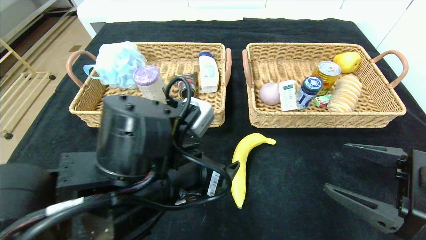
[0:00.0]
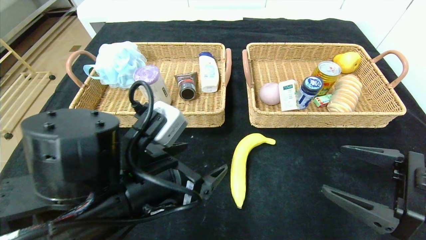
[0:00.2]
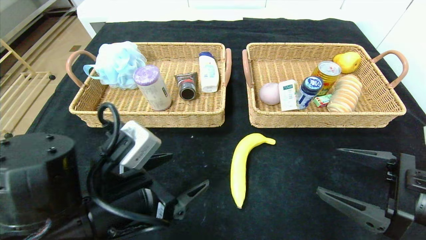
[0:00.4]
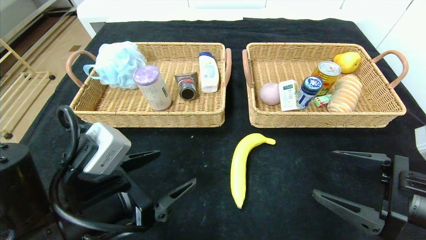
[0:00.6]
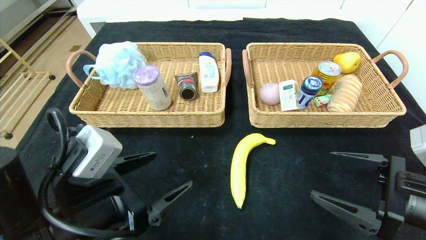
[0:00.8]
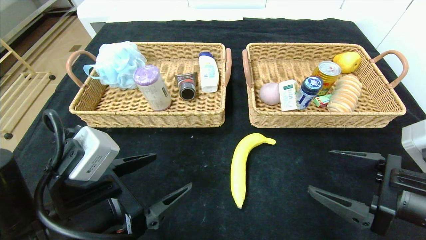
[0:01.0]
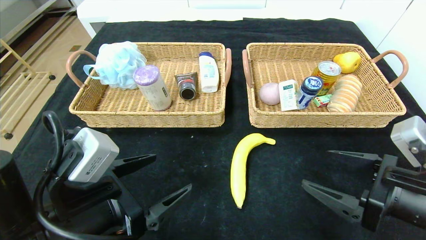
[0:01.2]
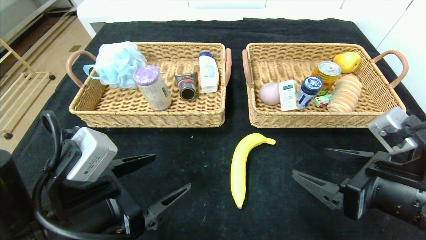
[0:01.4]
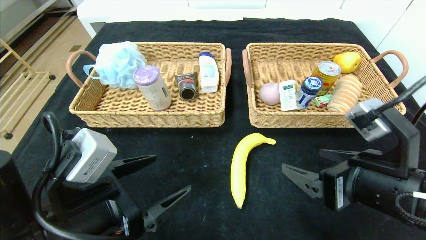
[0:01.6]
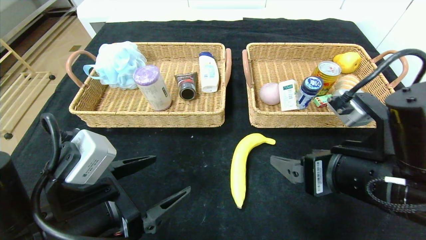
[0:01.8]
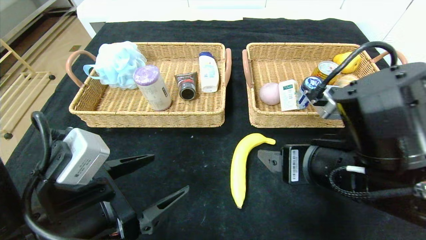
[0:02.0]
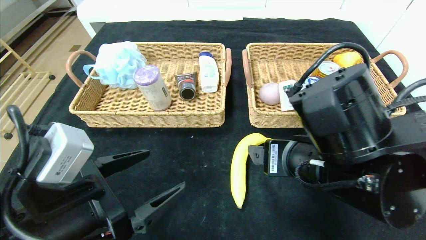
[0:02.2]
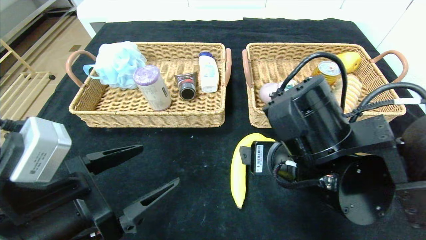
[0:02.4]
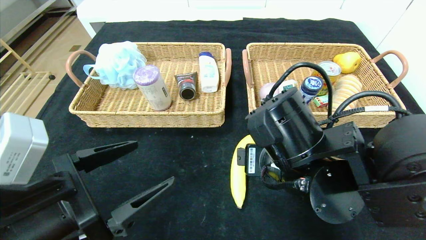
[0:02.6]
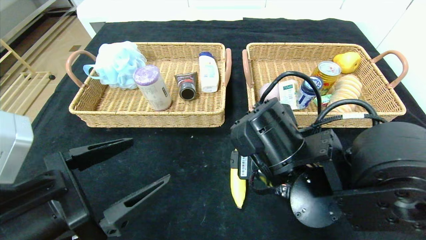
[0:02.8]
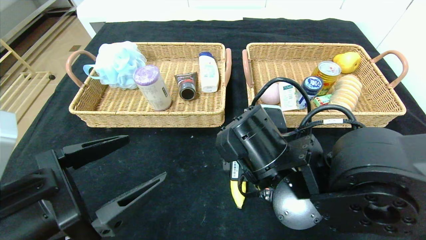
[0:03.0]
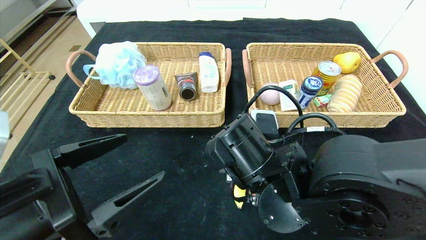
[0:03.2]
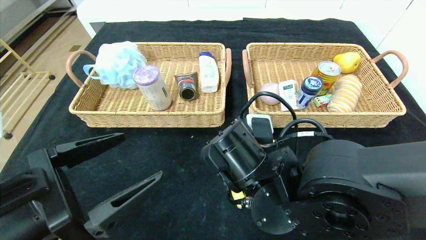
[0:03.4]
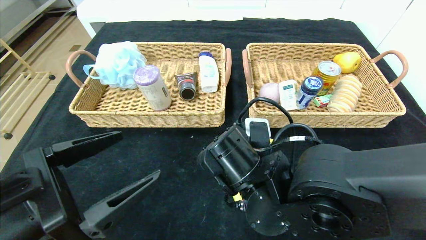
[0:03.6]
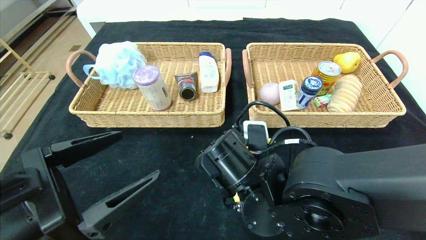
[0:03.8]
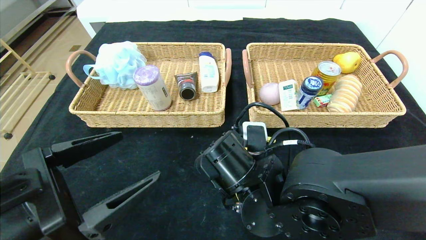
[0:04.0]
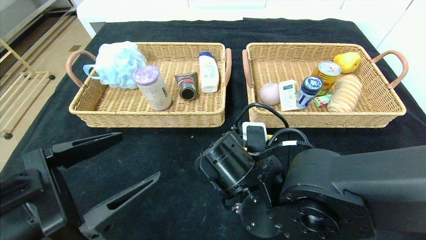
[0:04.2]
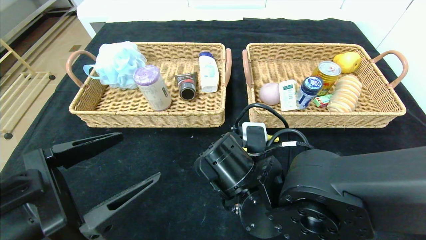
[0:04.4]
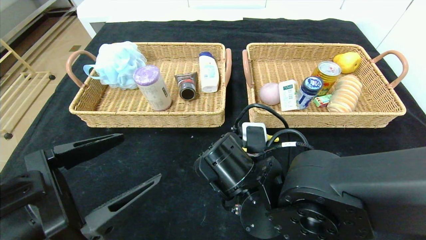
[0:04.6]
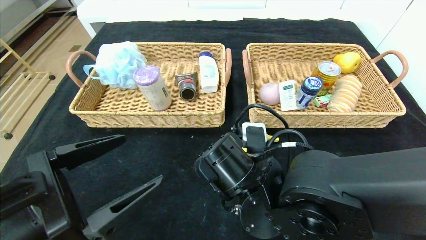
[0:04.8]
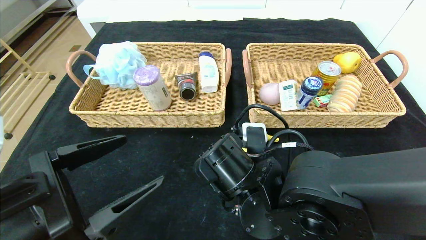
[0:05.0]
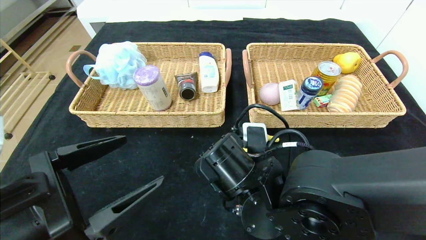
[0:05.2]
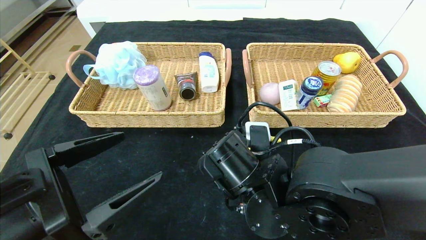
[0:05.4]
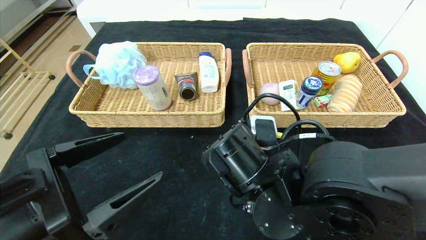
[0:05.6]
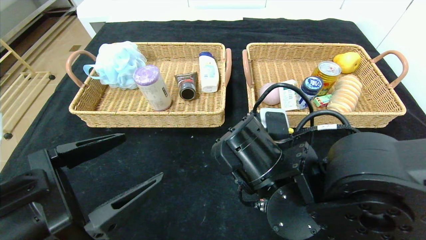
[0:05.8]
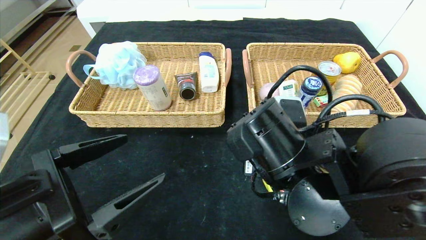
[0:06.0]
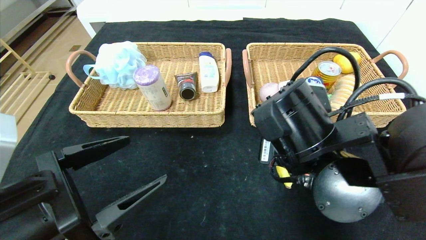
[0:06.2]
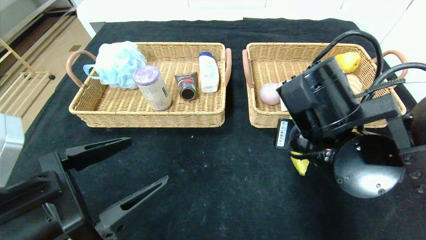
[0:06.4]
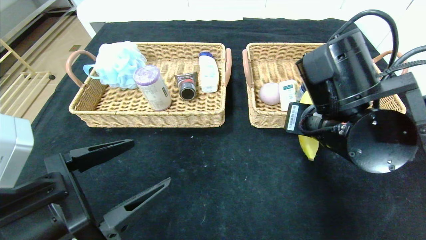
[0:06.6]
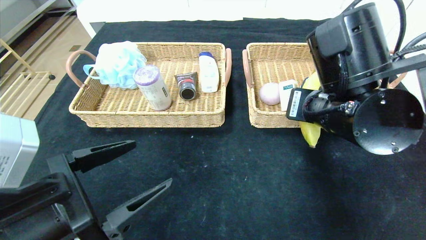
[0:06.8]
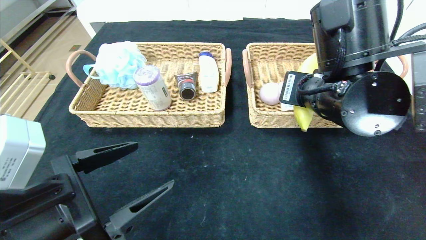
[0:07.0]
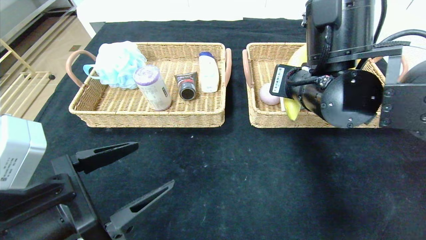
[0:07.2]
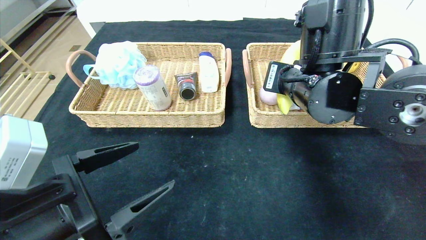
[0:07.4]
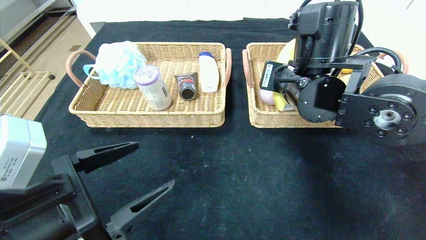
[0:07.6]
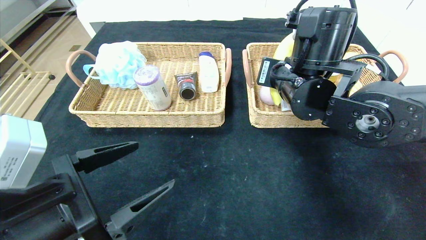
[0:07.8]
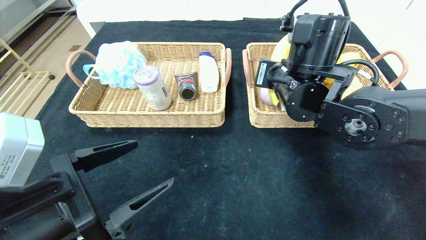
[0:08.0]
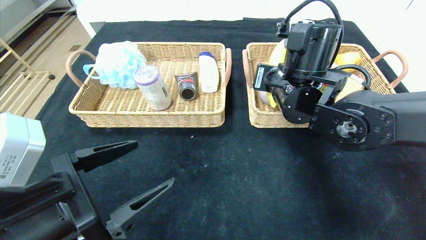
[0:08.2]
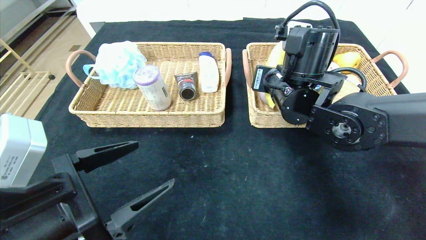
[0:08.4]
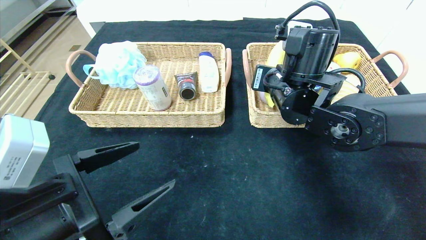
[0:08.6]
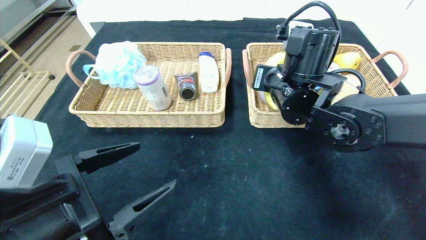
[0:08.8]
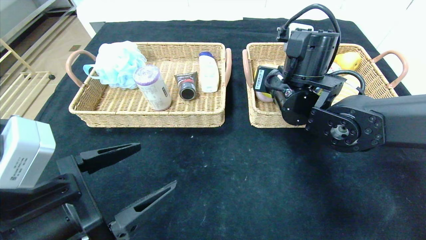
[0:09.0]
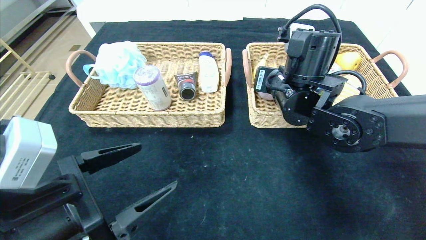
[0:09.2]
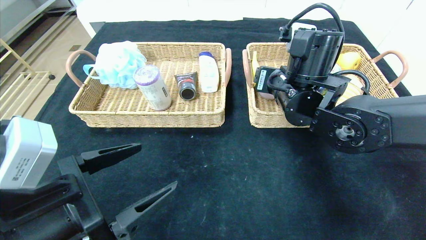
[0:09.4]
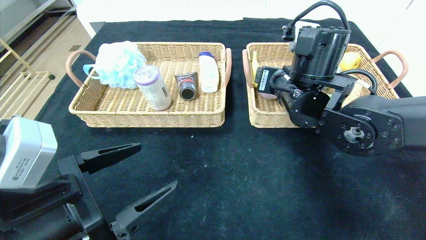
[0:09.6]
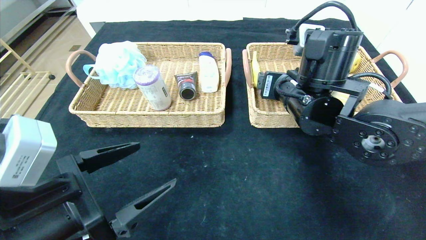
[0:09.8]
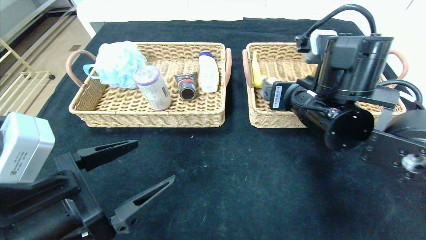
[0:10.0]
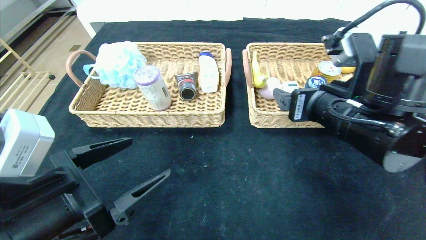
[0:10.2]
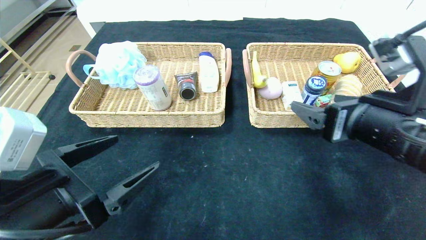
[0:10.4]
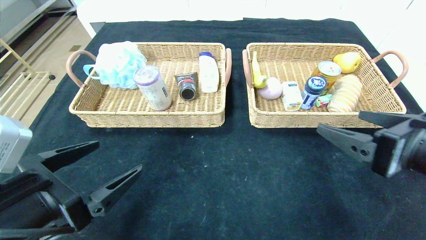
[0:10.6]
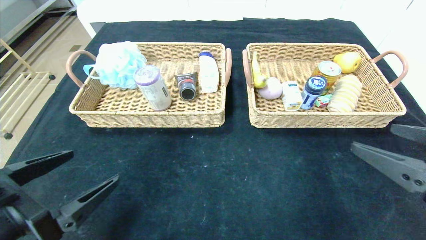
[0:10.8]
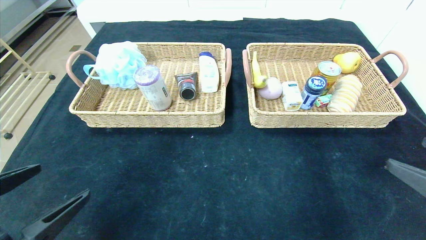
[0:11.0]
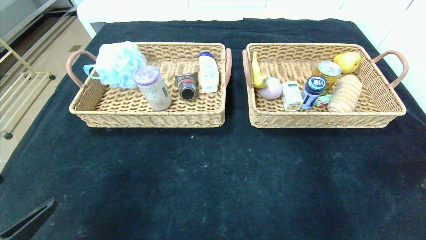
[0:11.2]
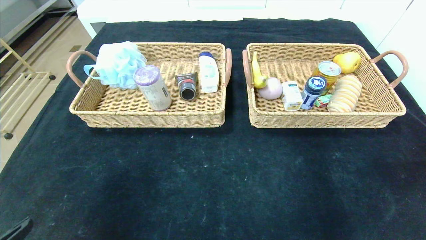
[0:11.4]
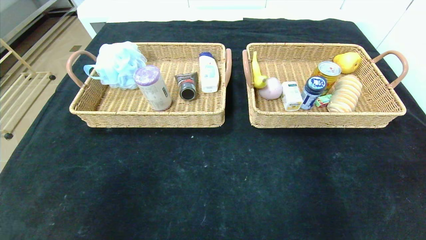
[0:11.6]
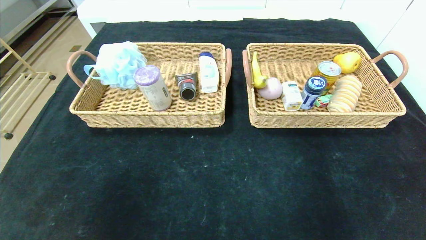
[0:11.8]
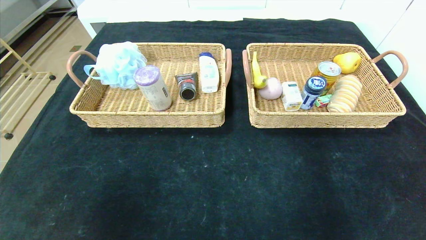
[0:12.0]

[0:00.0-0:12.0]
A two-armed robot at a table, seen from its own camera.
Step, 0:00.0 to 0:09.4: Grasp the banana and put it in the right basket.
0:00.0 to 0:01.6: Both grippers move to the left, about 10 cm.
0:01.6 to 0:03.0: The left gripper changes place by approximately 5 cm; the right gripper shifts some 15 cm to the left.
0:03.0 to 0:04.4: The right gripper closes its fingers.
0:04.4 to 0:06.0: The right gripper heads upward, covering about 5 cm.
0:06.0 to 0:07.6: The right gripper travels forward and upward by approximately 10 cm.
0:07.6 to 0:09.0: The right gripper opens.
0:09.0 to 0:10.4: The right gripper heads backward and to the right, covering roughly 20 cm, and opens up.
0:10.4 to 0:12.0: The left gripper is displaced backward and to the left by approximately 20 cm; the right gripper is displaced backward and to the right by approximately 25 cm.

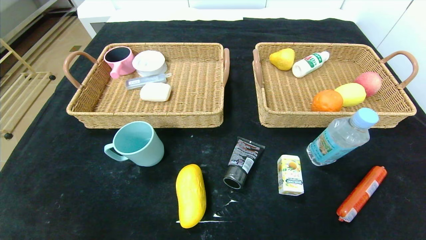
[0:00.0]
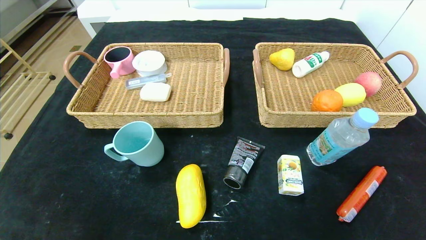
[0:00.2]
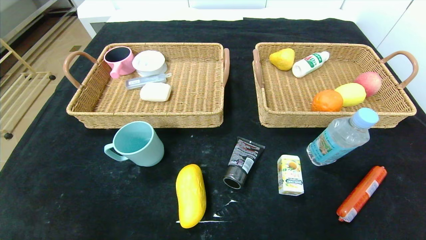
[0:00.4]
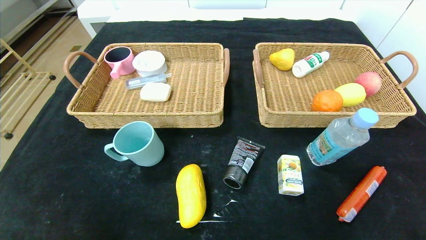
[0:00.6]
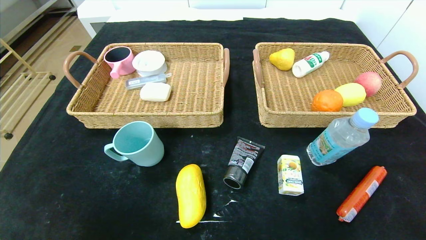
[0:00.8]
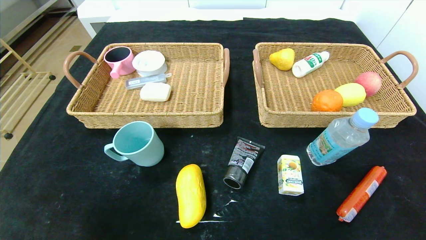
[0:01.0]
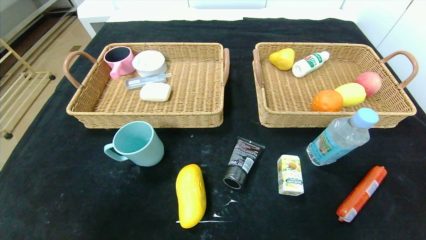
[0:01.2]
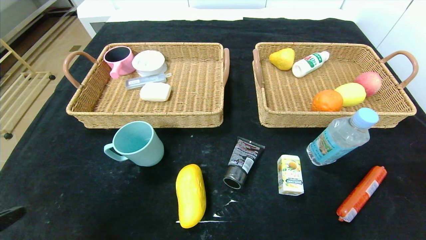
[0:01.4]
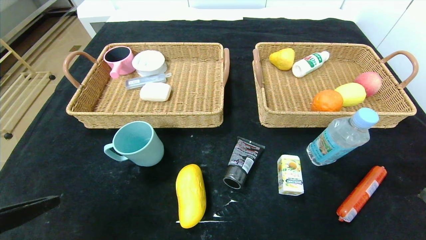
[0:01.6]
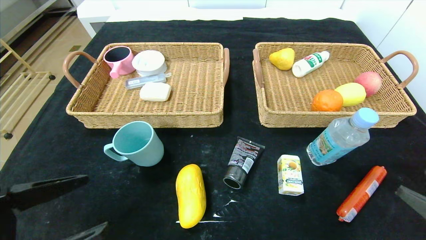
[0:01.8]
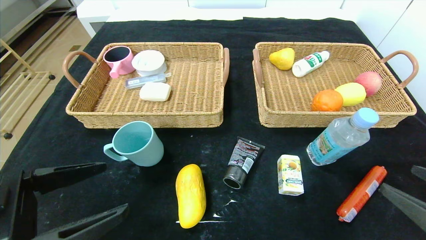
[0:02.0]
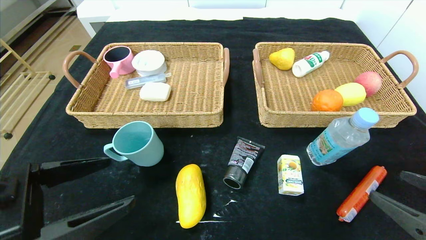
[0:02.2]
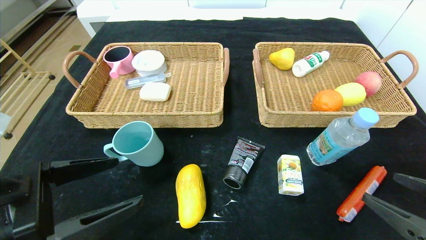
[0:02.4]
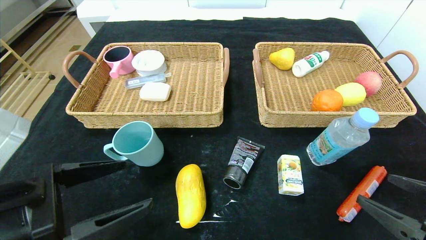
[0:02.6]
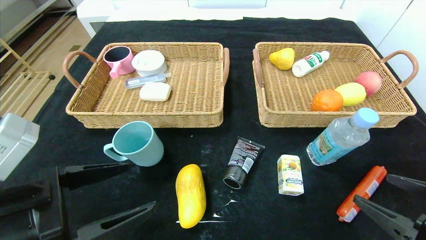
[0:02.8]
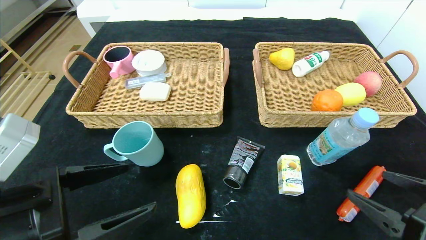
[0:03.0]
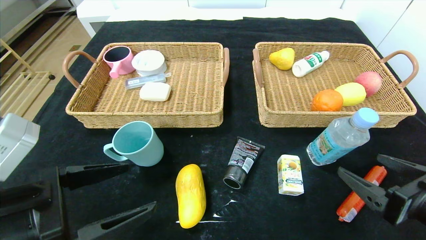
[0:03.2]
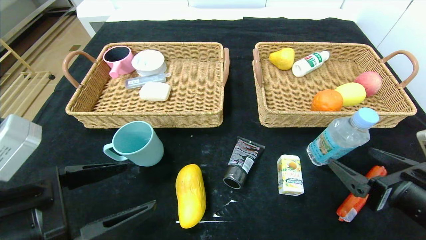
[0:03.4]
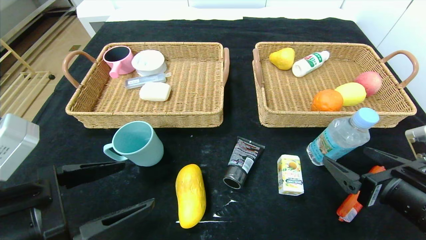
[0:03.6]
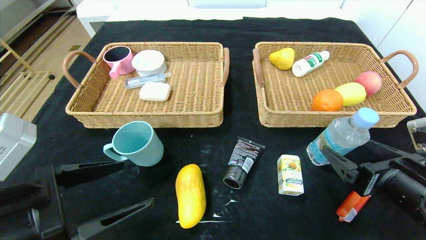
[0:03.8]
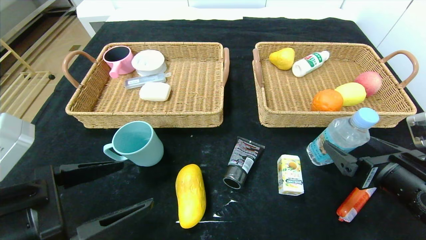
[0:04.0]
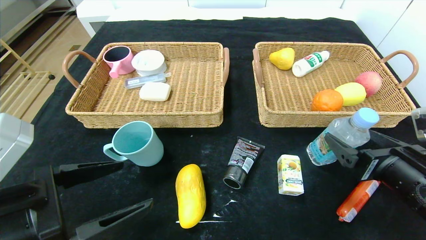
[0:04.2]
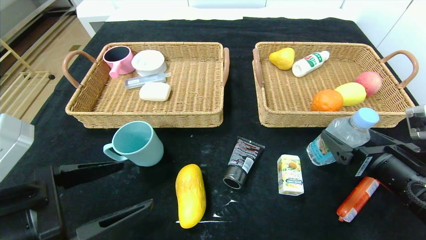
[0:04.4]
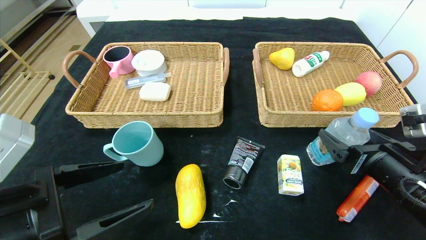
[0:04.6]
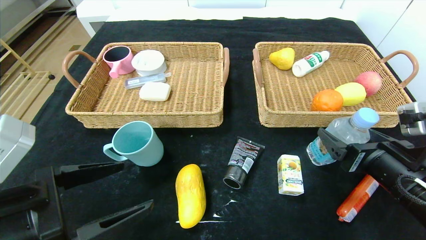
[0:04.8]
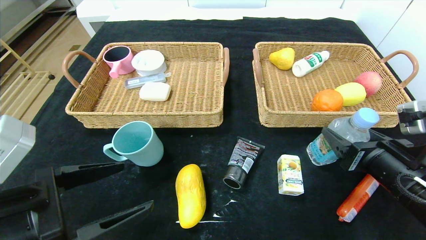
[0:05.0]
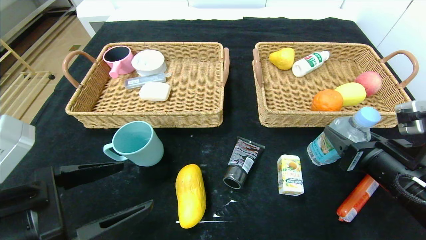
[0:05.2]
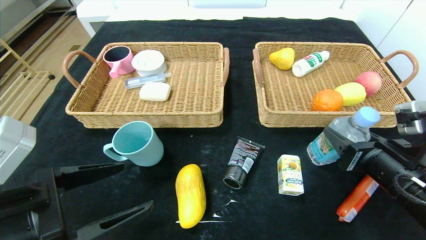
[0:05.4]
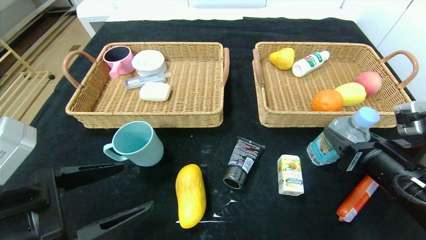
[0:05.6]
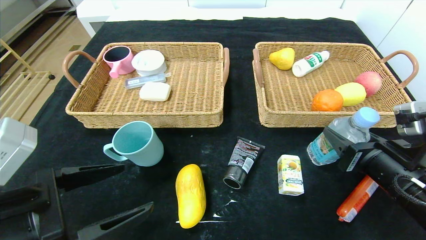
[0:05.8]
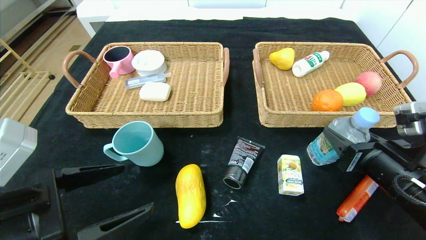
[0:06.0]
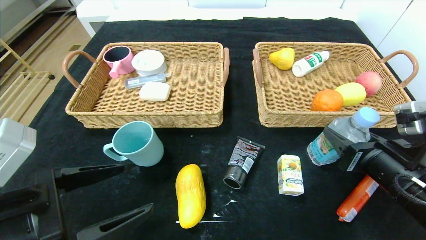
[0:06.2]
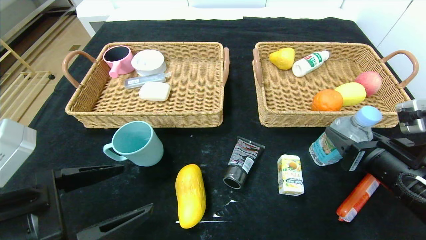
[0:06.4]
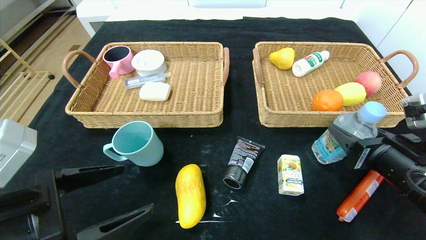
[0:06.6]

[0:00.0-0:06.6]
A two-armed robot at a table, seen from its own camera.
0:00.0 to 0:01.6: The left gripper heads upward and forward, covering approximately 15 cm.
0:01.6 to 0:03.2: The left gripper moves forward, roughly 5 cm; the right gripper goes about 10 cm forward and to the left.
0:03.2 to 0:05.0: The right gripper travels forward by about 5 cm.
0:05.0 to 0:06.6: There are only small adjustments of the grippers.
